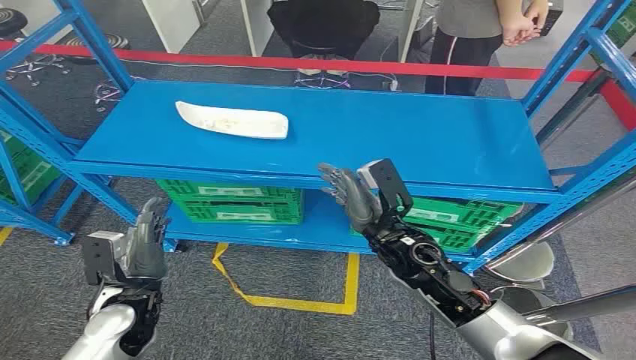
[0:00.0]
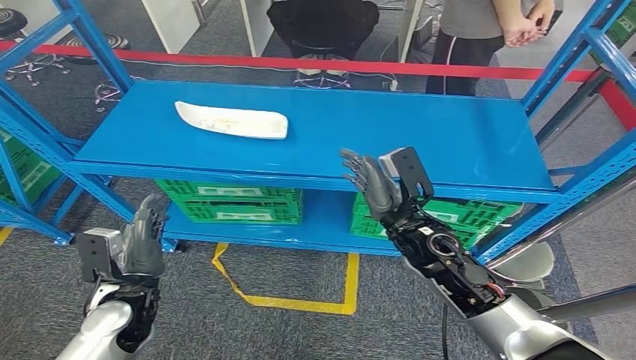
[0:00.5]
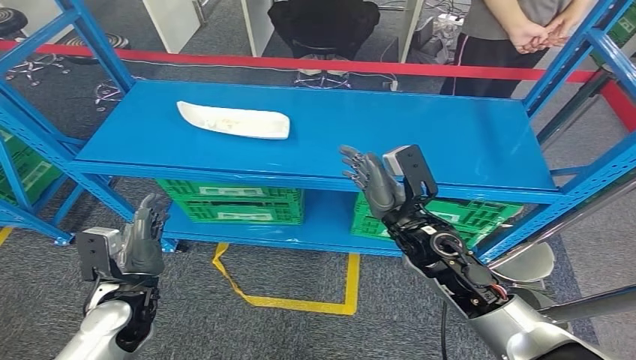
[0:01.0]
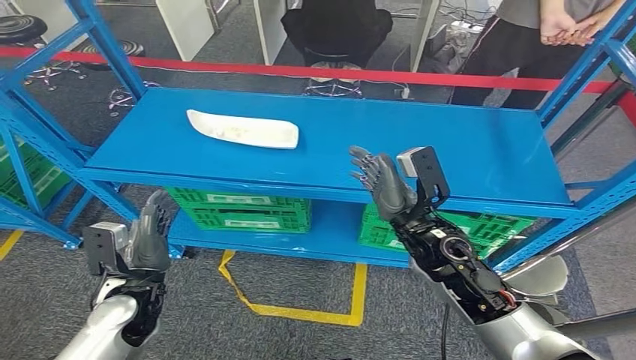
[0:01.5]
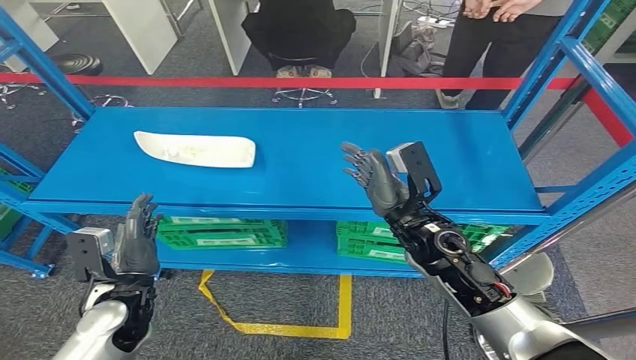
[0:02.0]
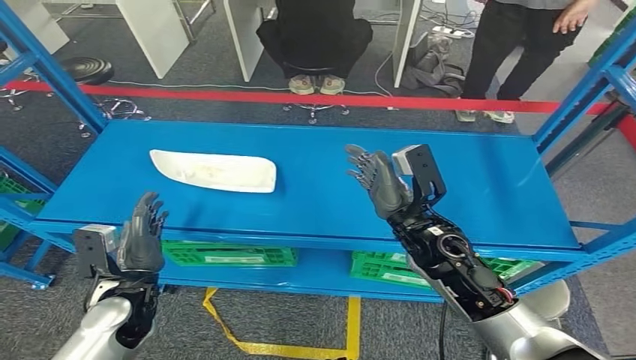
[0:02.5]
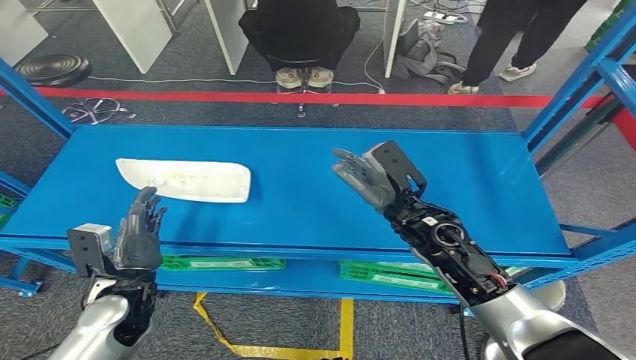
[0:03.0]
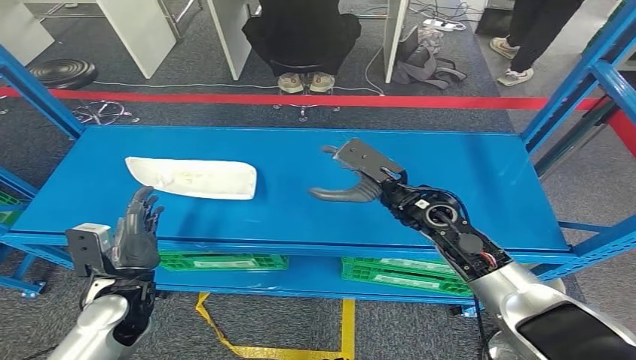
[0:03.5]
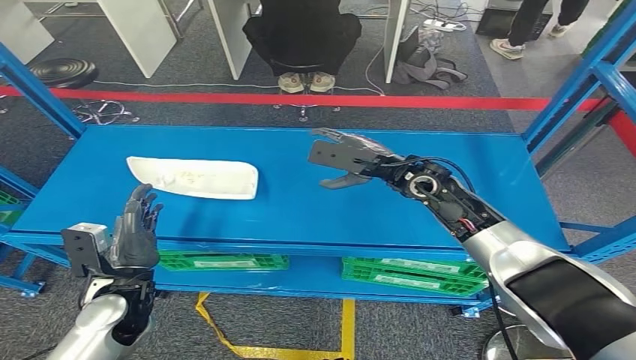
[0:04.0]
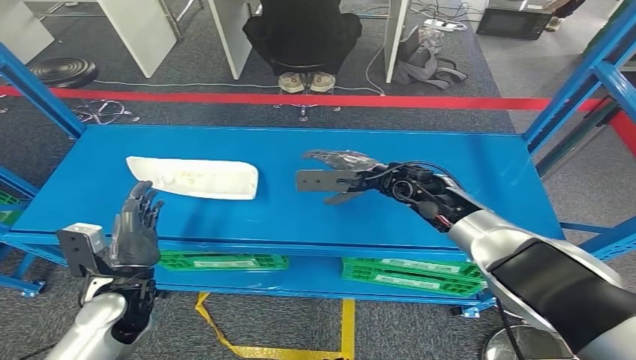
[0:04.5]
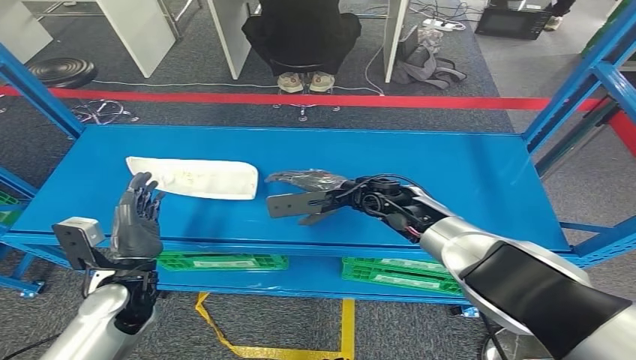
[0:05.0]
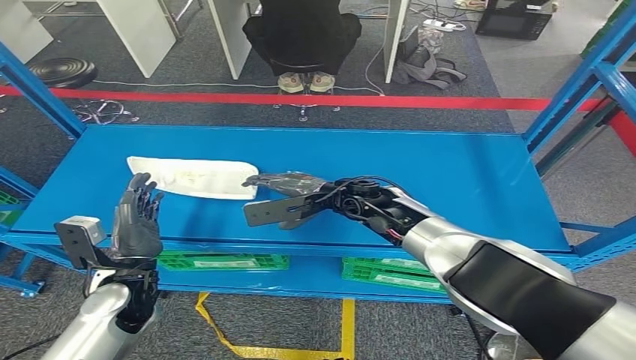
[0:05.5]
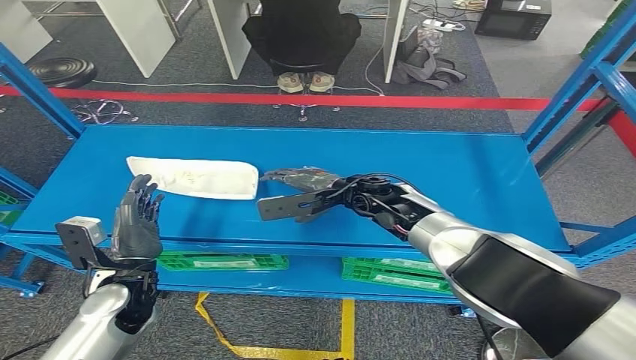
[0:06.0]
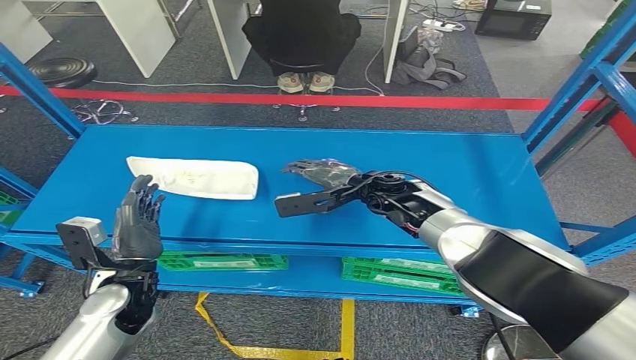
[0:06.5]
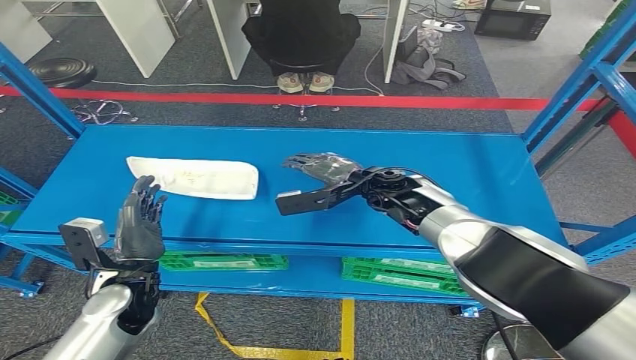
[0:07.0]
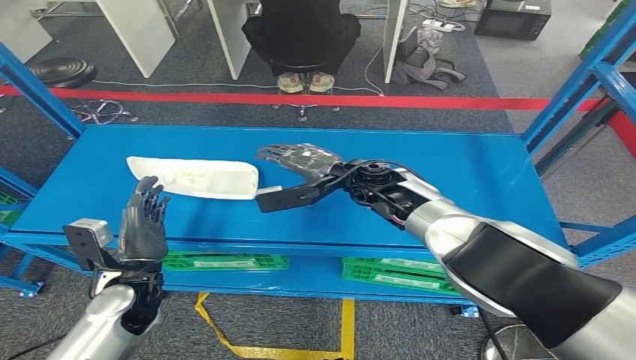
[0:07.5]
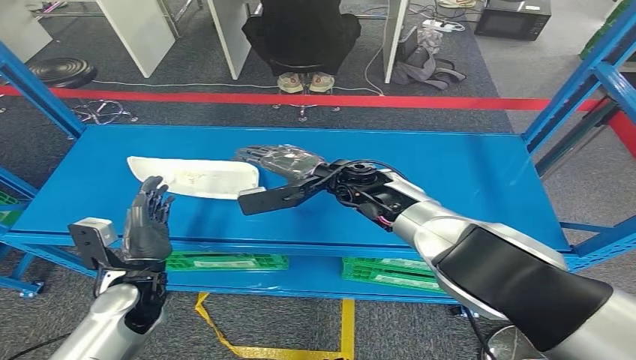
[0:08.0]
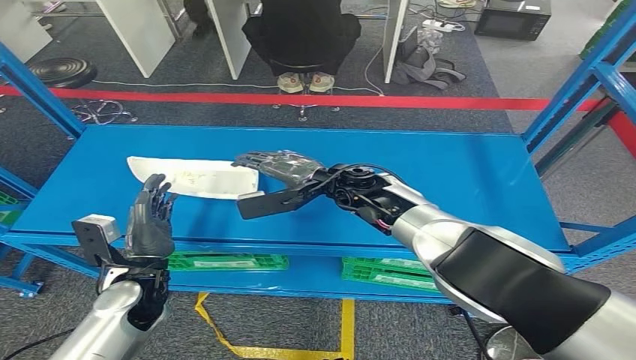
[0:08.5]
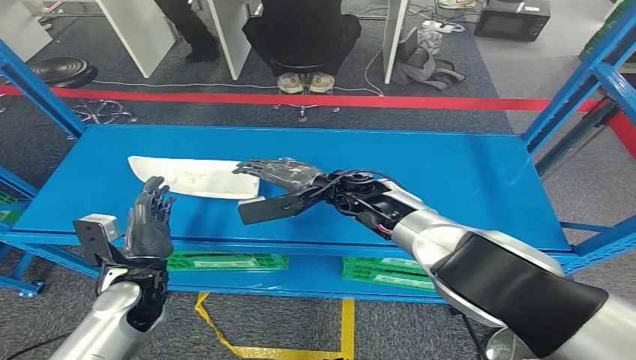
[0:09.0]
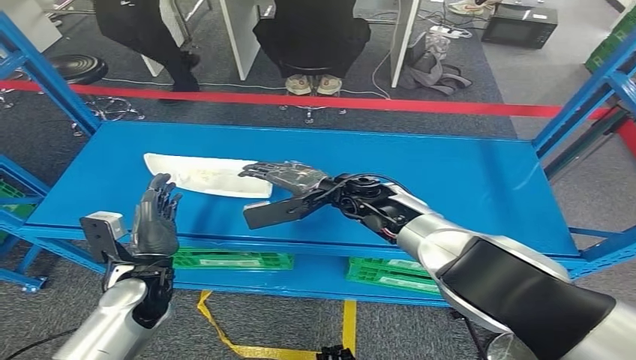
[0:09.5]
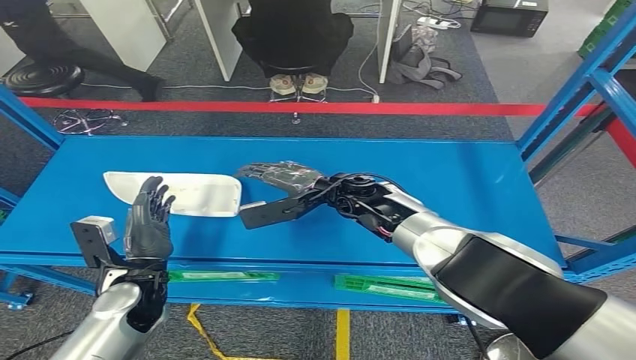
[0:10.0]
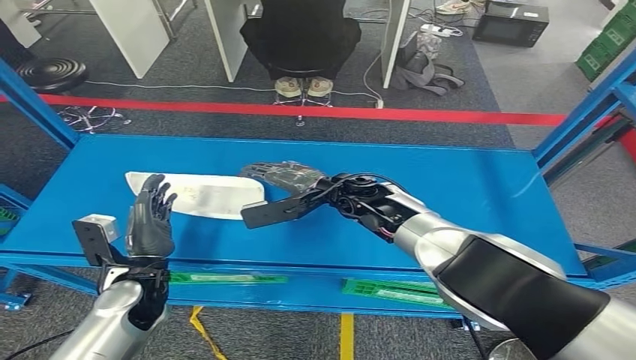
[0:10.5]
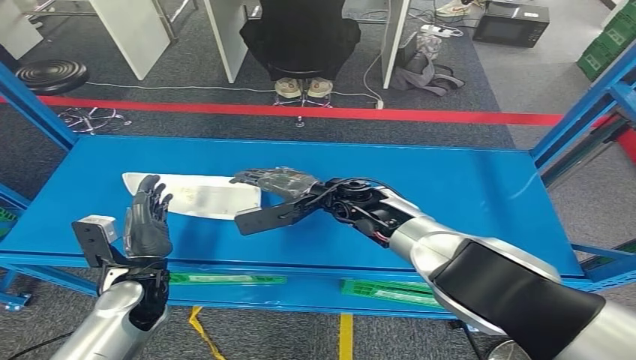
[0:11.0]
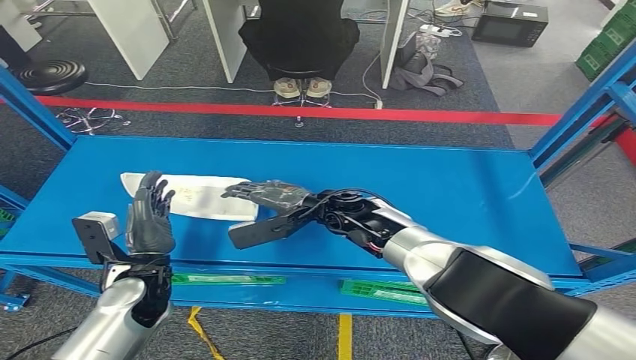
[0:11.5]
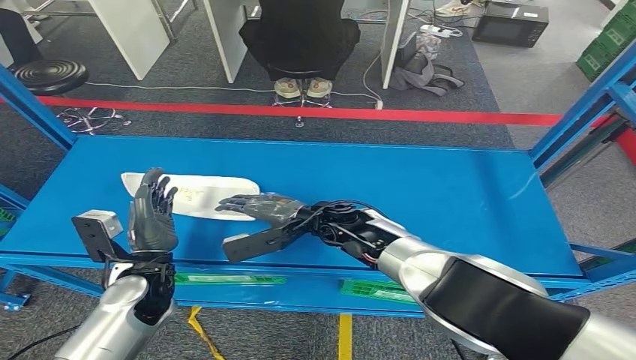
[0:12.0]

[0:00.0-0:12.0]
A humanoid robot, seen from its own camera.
0:04.0 to 0:06.0: The right hand heads to the left, covering about 5 cm.
0:06.0 to 0:08.0: The hands make only small movements.

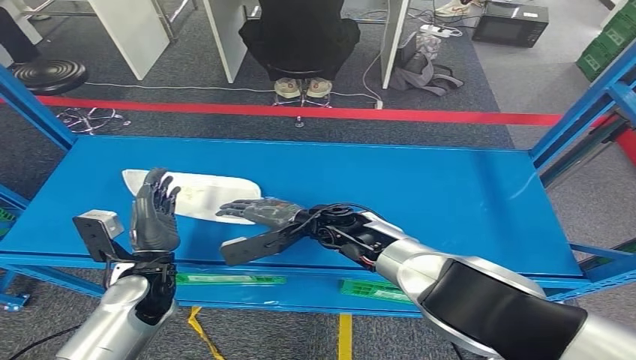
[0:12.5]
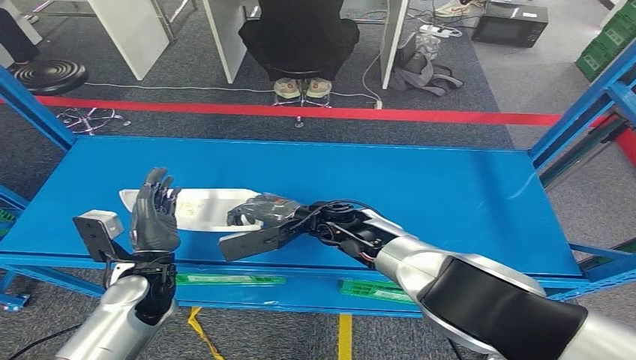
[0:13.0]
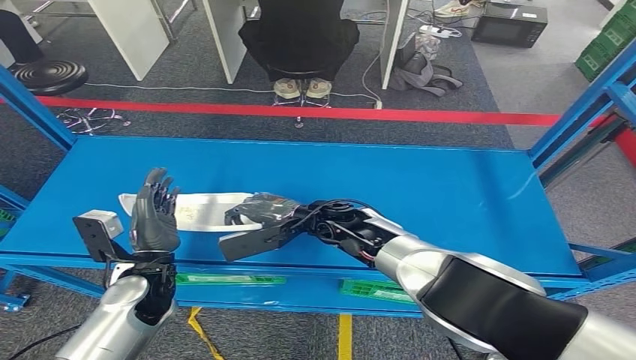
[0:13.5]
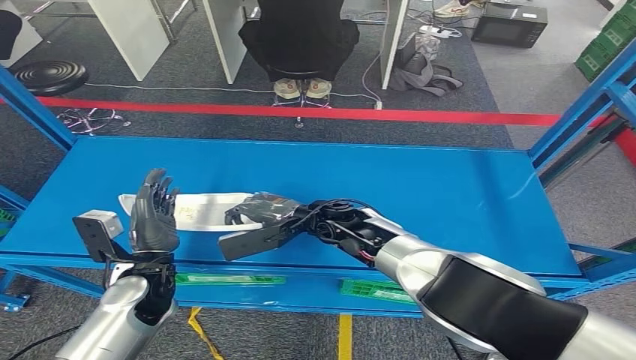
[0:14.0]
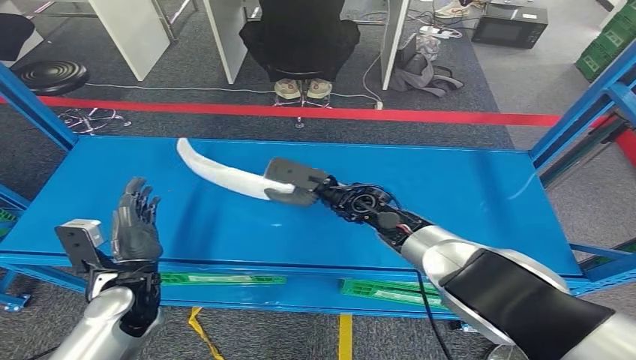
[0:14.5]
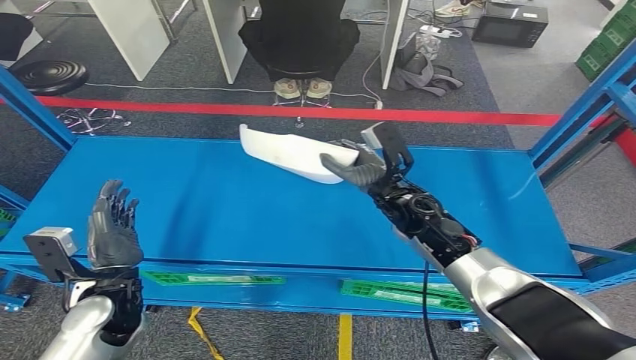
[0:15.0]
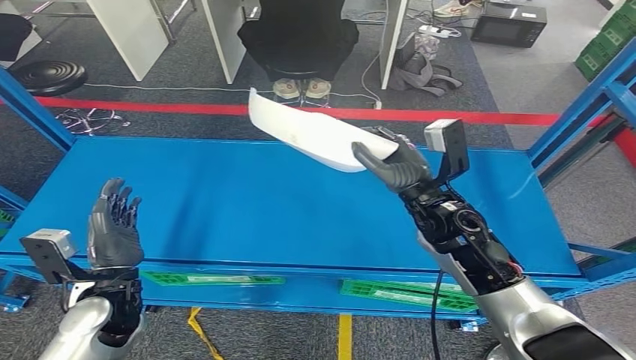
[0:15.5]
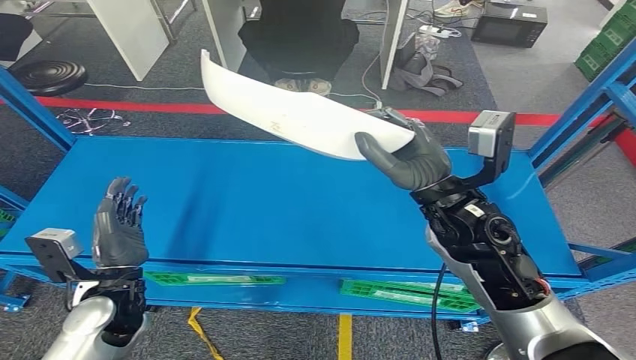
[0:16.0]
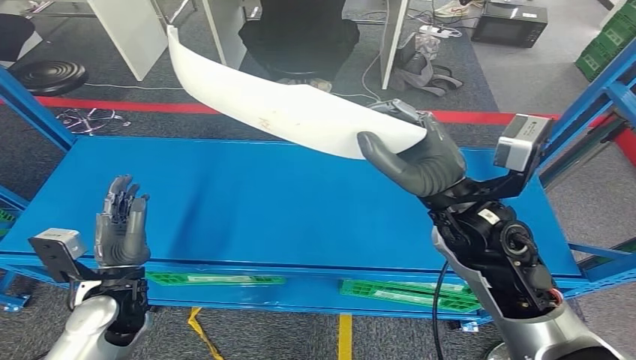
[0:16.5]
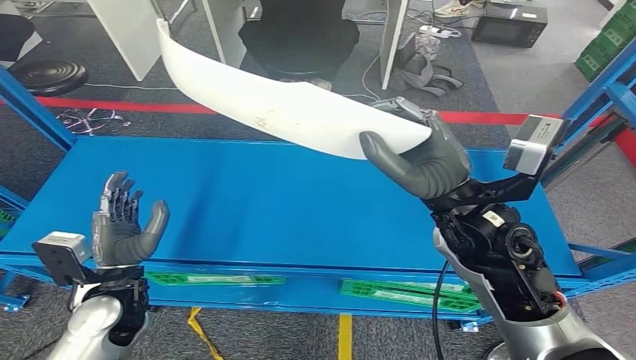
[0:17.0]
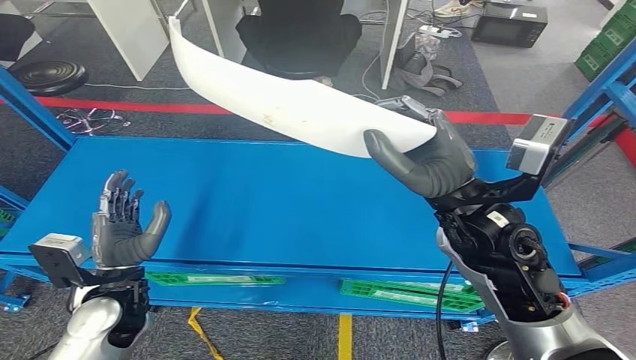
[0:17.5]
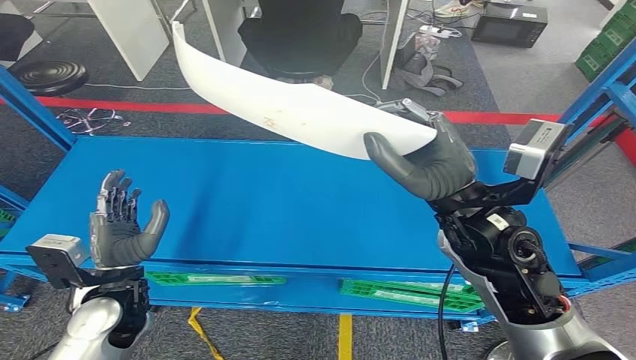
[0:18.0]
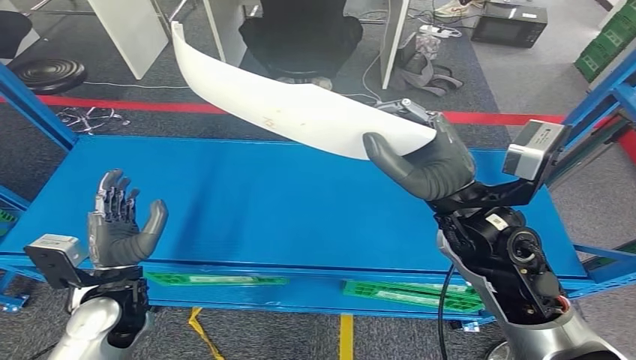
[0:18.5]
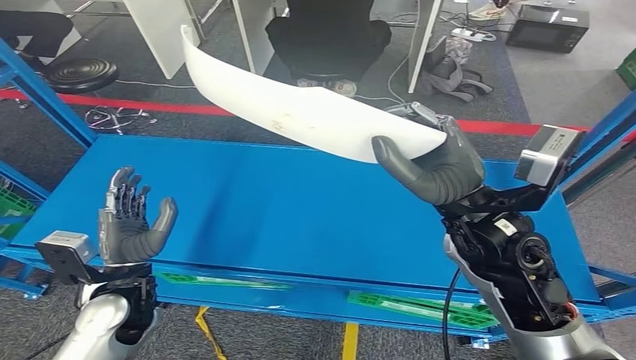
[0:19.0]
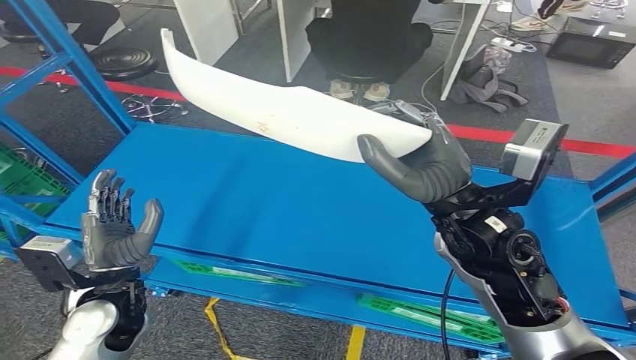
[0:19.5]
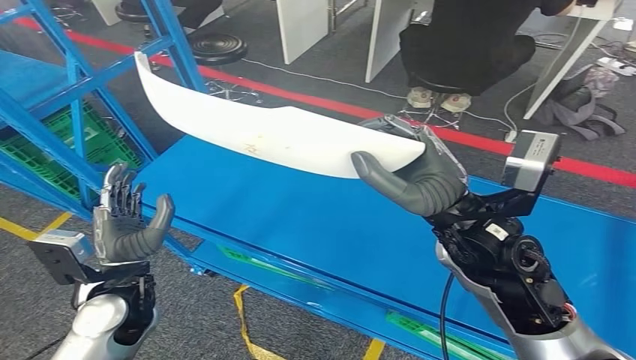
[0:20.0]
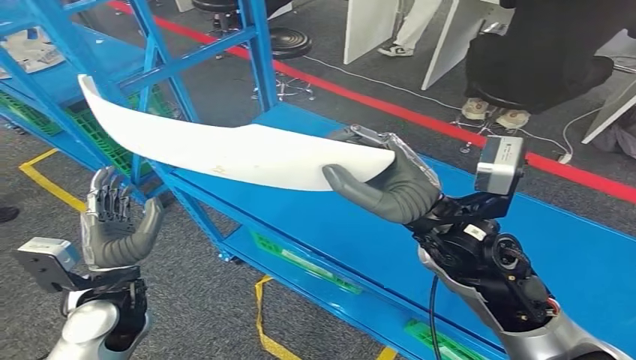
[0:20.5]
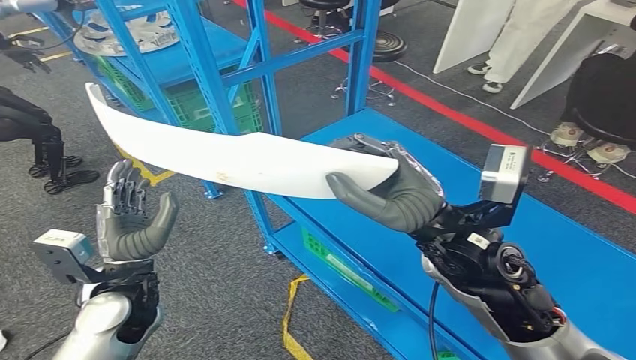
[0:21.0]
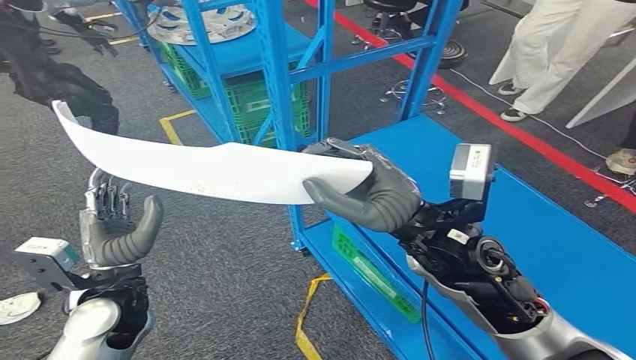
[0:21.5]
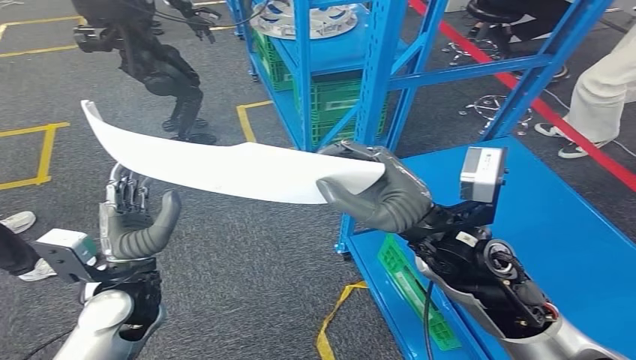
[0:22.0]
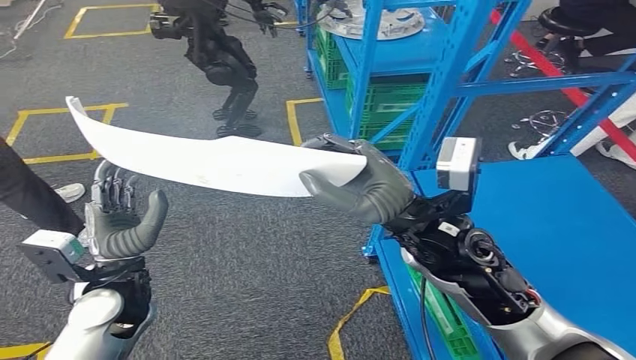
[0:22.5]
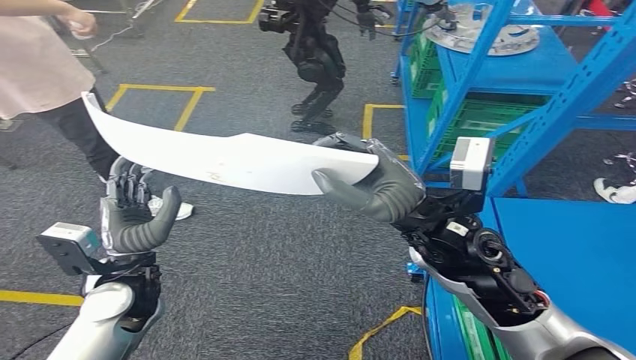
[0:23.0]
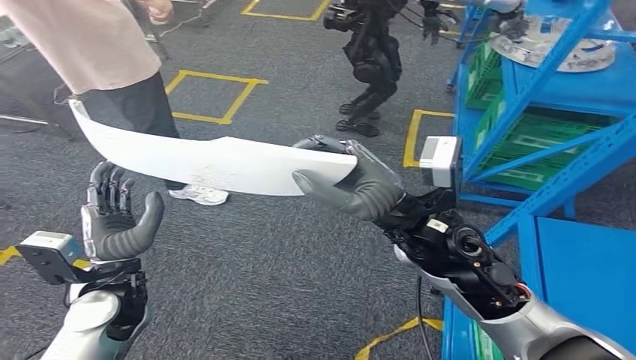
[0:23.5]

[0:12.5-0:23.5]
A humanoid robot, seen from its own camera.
Step, 0:12.5 to 0:16.5: Pick up the small parts from the shelf.
0:12.5 to 0:14.5: The right hand changes place by some 5 cm.
0:16.0 to 0:18.0: The right hand changes place by roughly 5 cm.
